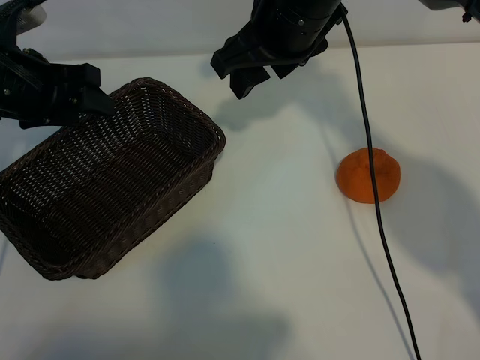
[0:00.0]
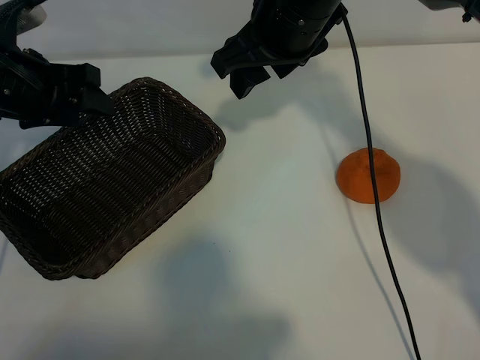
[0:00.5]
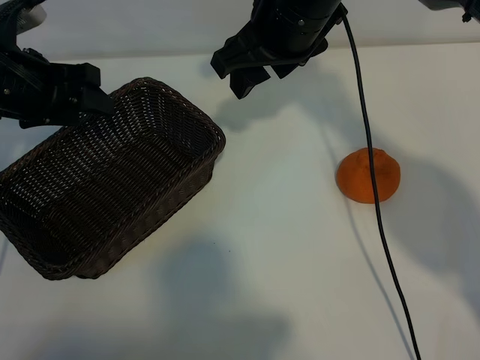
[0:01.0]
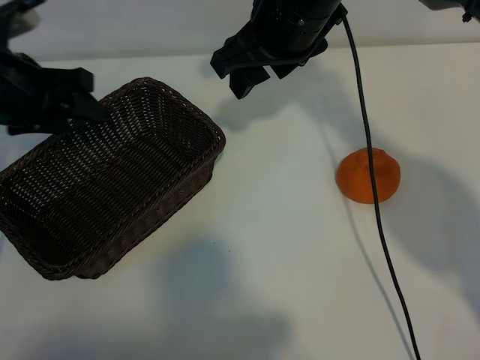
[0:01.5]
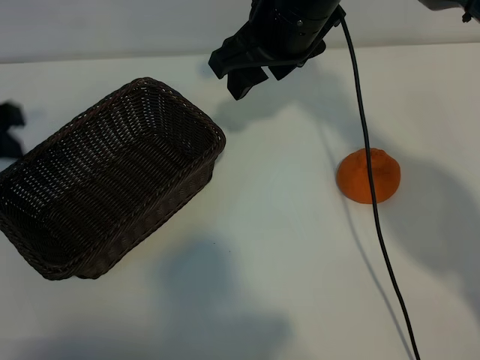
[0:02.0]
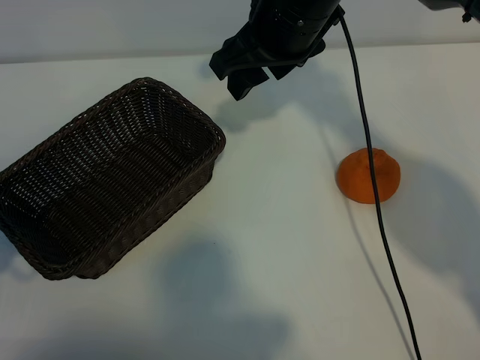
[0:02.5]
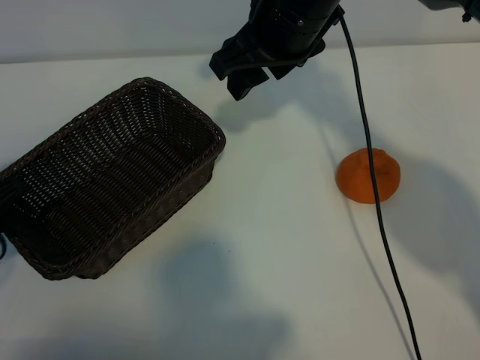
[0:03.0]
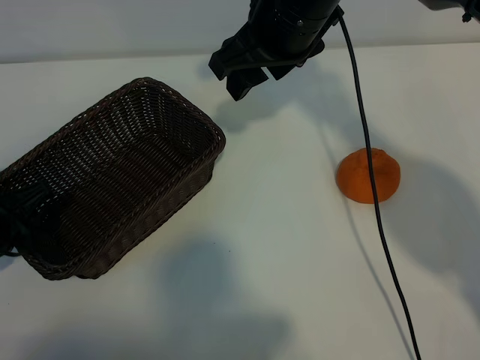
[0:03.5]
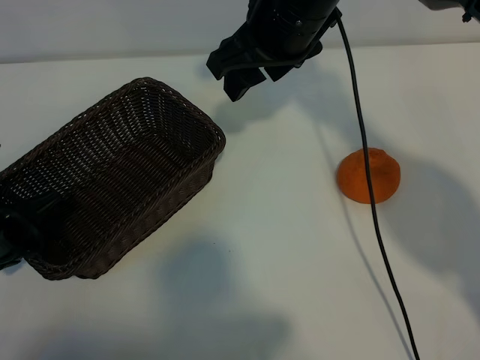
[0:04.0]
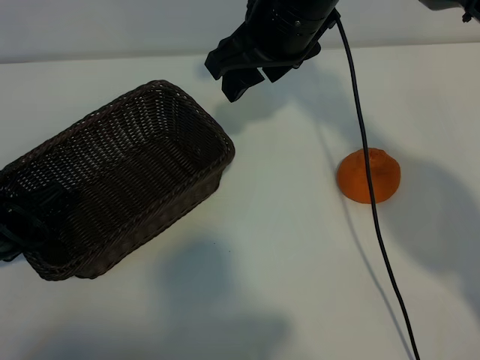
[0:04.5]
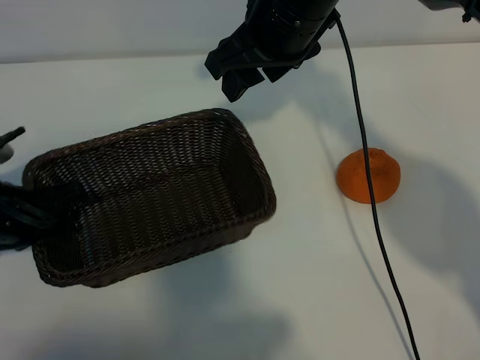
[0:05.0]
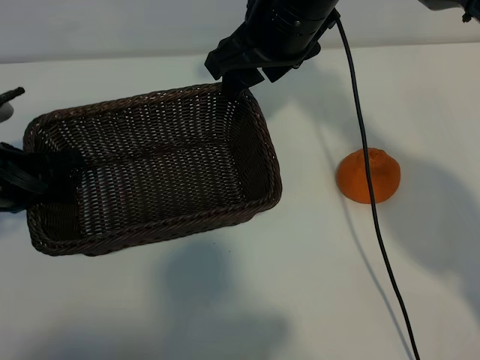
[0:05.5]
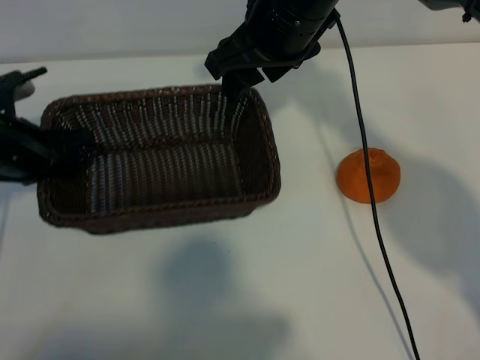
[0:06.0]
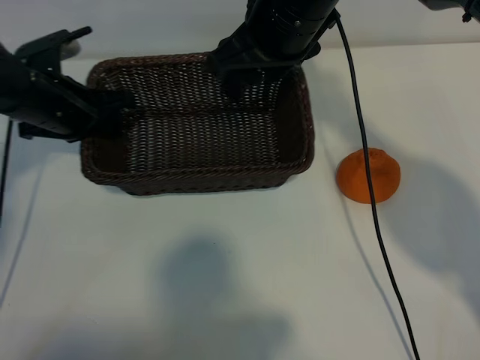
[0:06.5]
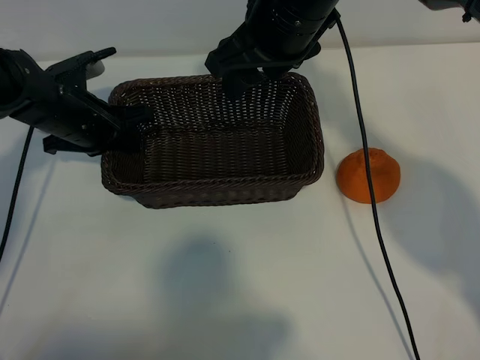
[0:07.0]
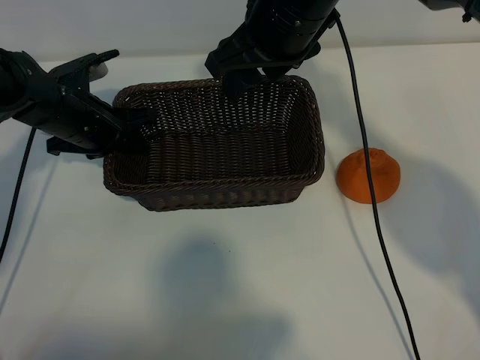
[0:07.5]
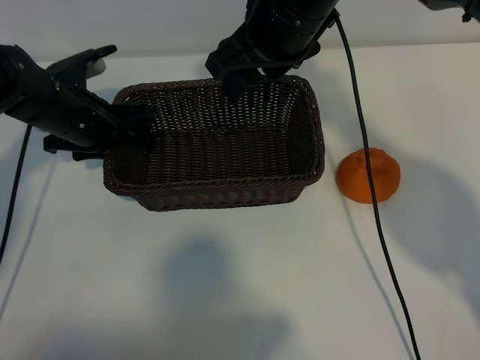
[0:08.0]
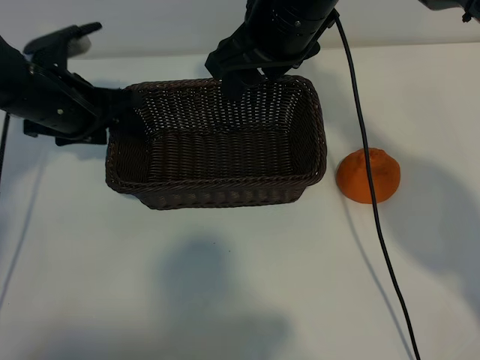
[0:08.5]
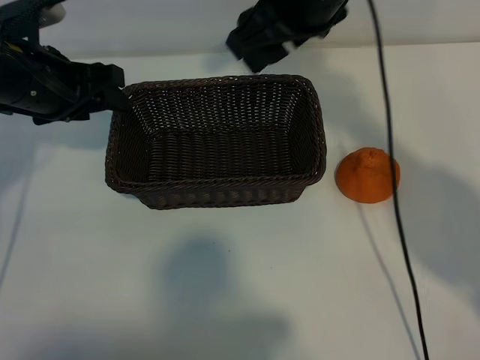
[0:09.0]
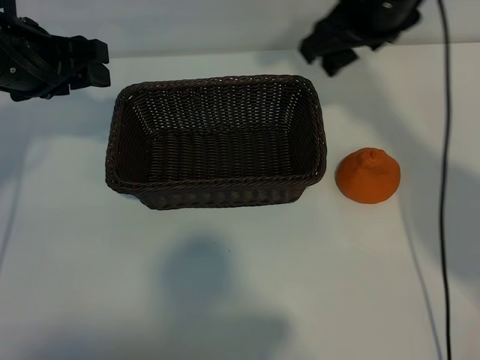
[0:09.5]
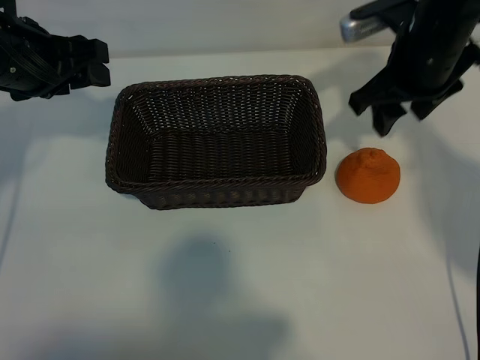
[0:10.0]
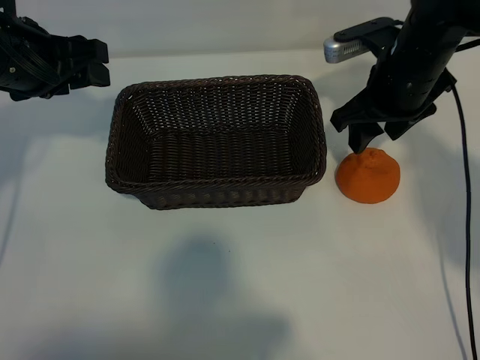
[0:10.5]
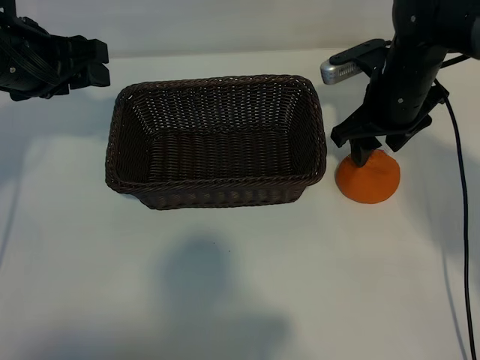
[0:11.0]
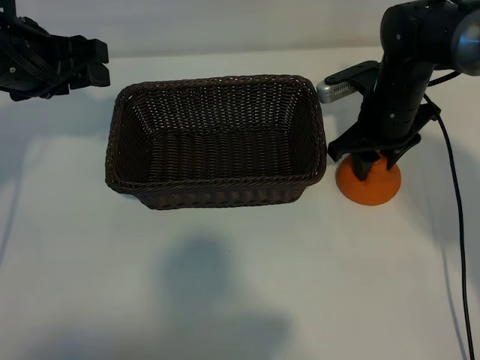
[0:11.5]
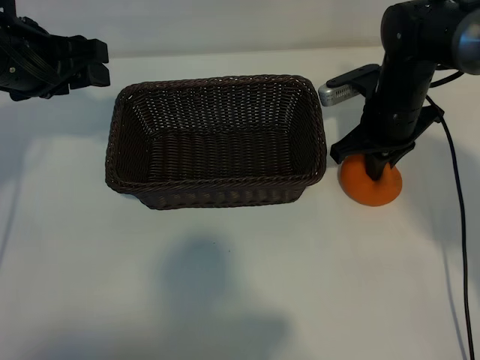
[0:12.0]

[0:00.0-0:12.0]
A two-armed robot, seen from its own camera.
Task of the whole recording: pick up the orange and put it into the basket.
Step, 0:01.0 to 0:04.0: Grasp the basket with left gripper.
Step, 0:04.5 to 0:07.5: Place the basket in the center of view with left gripper.
Step, 0:08.0 to 0:11.5: Grasp the orange with right gripper.

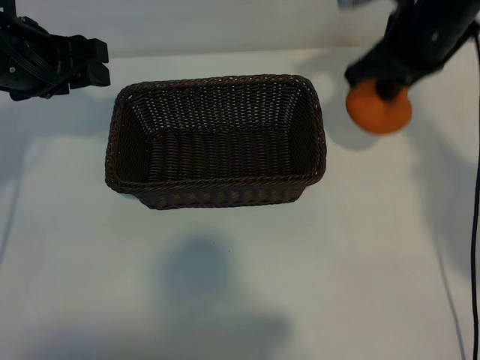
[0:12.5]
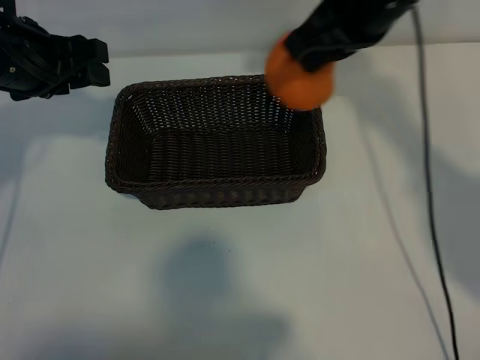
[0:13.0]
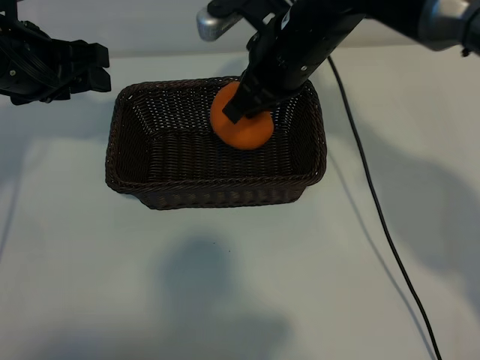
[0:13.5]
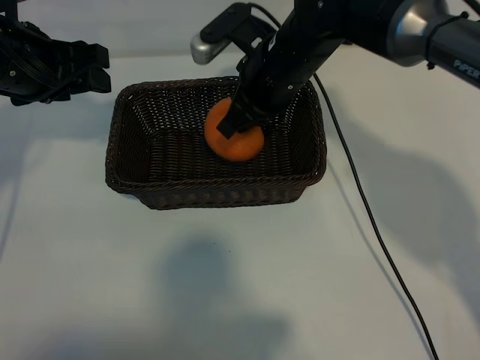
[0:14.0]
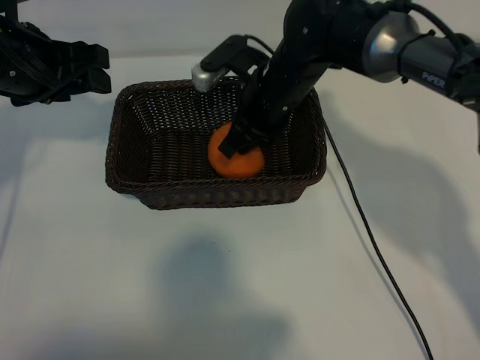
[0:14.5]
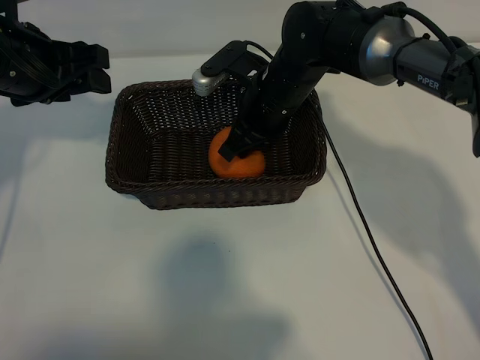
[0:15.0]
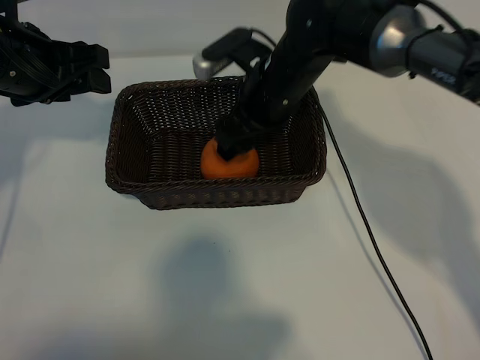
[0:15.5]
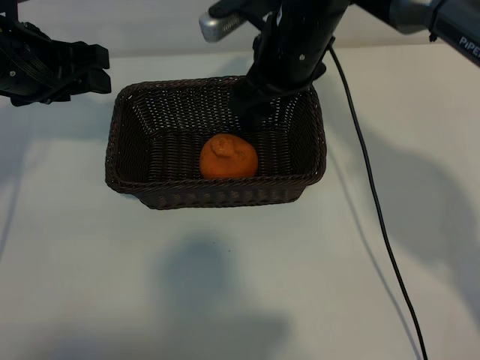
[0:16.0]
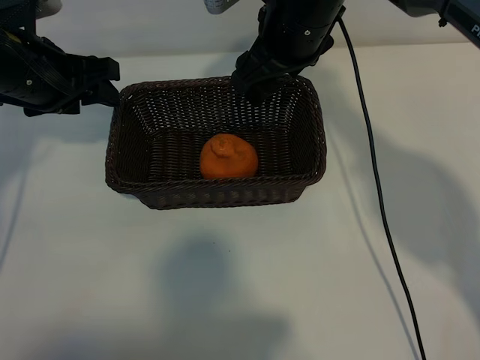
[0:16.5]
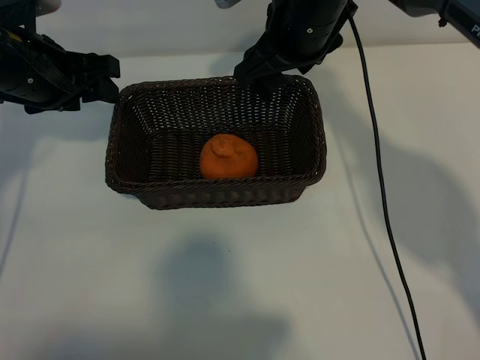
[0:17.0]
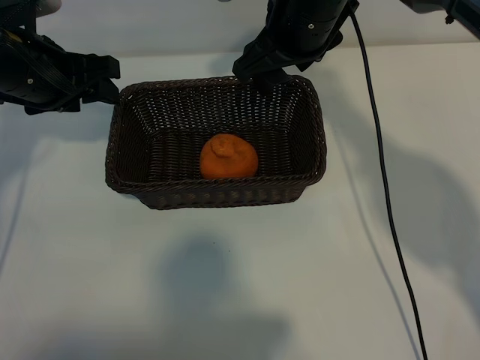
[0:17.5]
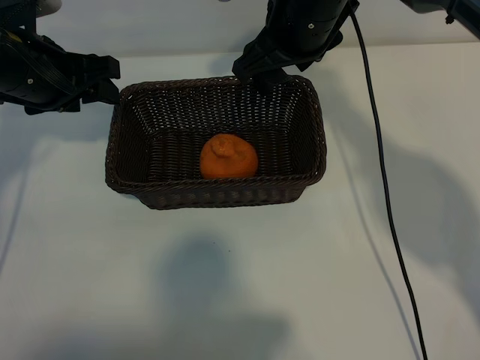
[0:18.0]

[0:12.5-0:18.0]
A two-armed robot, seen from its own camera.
Task of the whole recording: pick up the orange and put it into the basket.
Step, 0:12.5 to 0:15.0: Place the orange in the basket with right gripper.

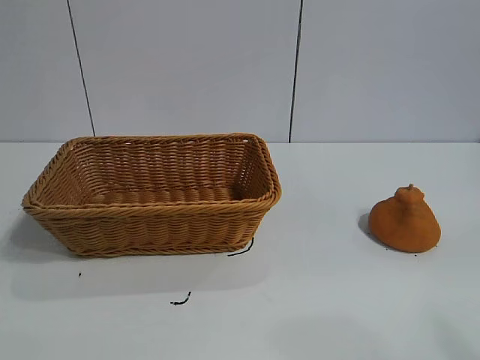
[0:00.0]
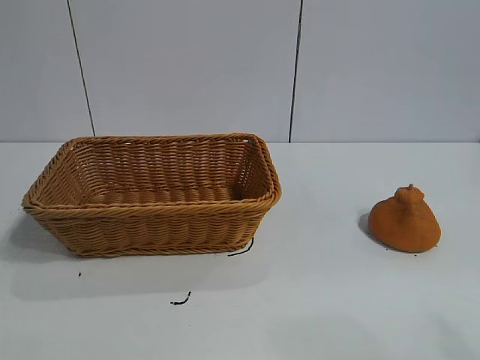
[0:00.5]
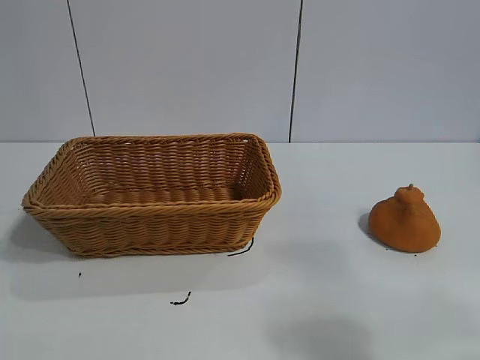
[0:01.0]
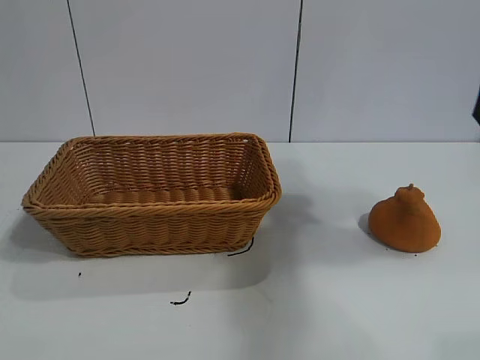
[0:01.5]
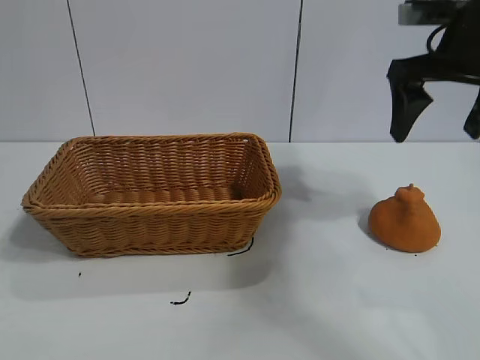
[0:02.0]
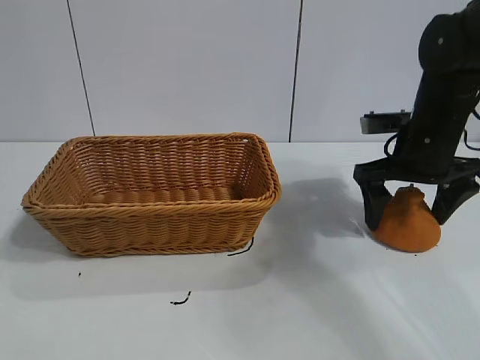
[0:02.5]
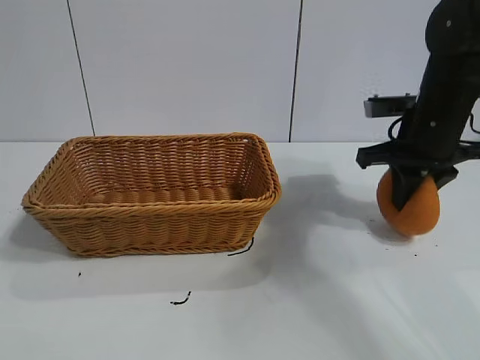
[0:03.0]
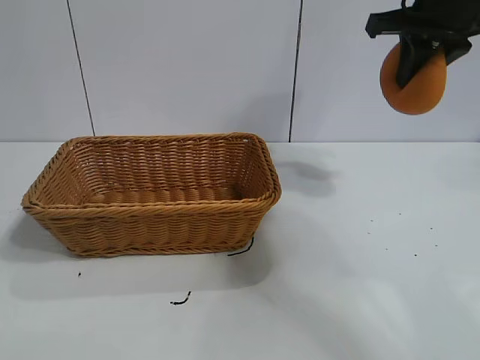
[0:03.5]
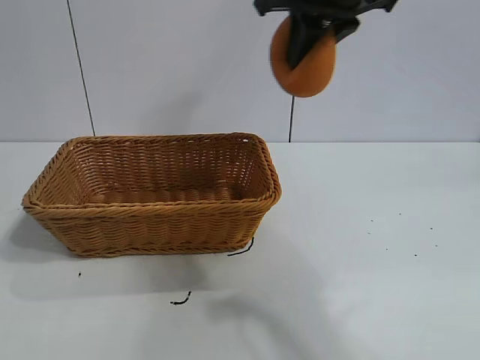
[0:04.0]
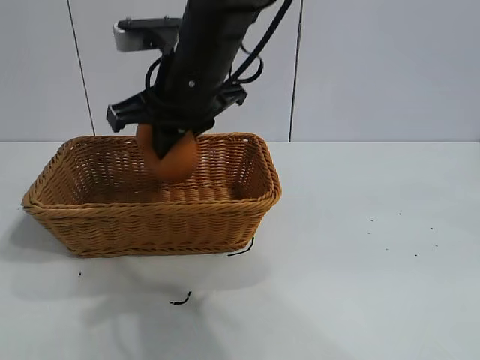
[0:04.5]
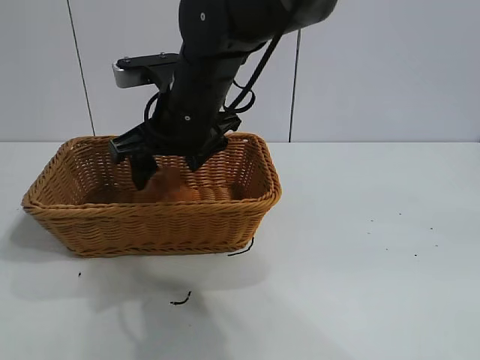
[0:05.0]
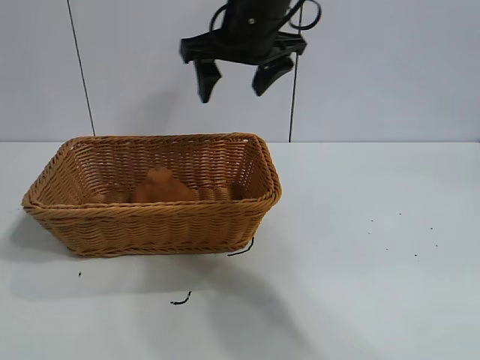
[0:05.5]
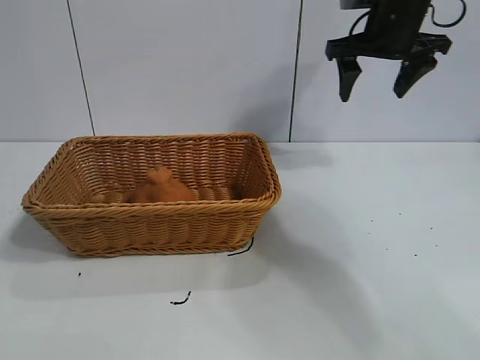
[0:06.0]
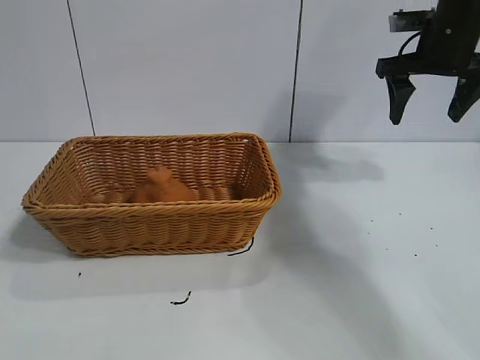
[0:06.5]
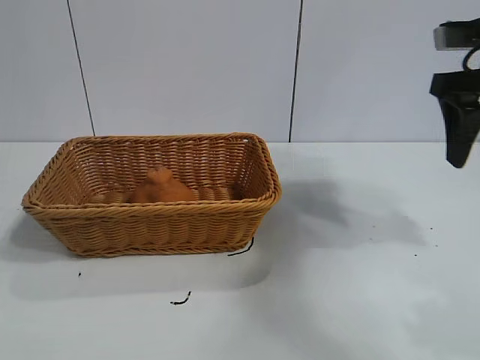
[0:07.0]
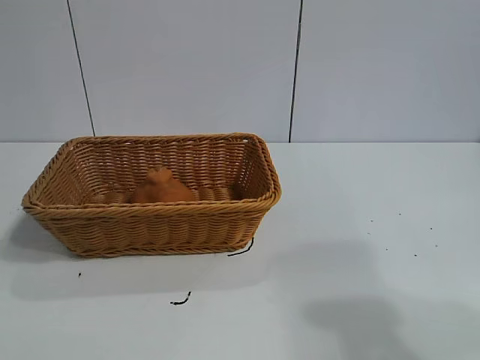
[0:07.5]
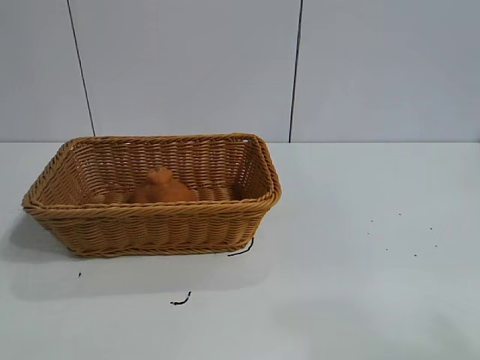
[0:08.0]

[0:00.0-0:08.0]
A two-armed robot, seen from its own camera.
Task of the whole recording: pick up the orange and put it into the basket.
Step, 0:01.0 to 0:02.5: Grasp the orange with right gripper.
Step, 0:03.5 to 0:05.0: Place the orange in the basket with right gripper.
